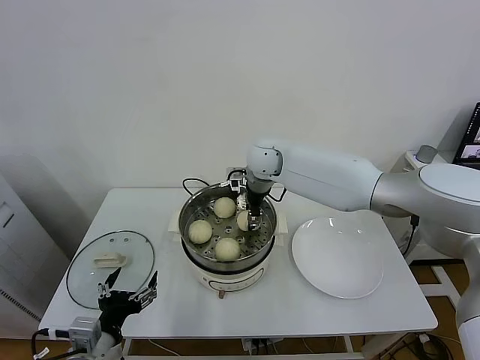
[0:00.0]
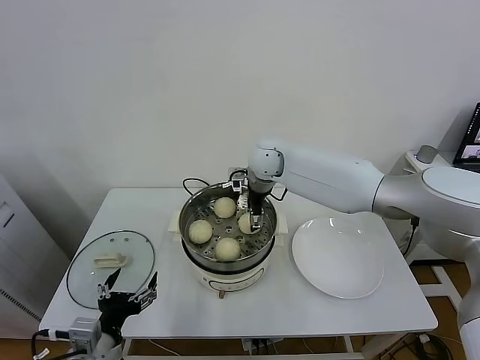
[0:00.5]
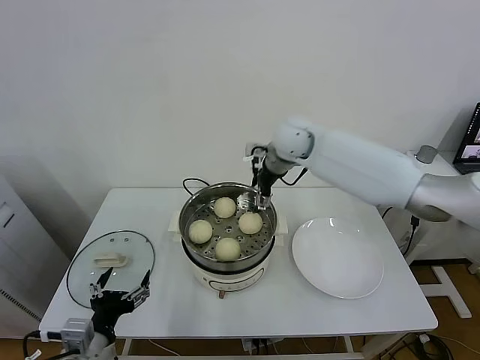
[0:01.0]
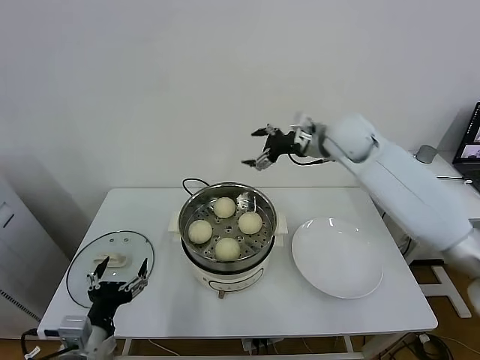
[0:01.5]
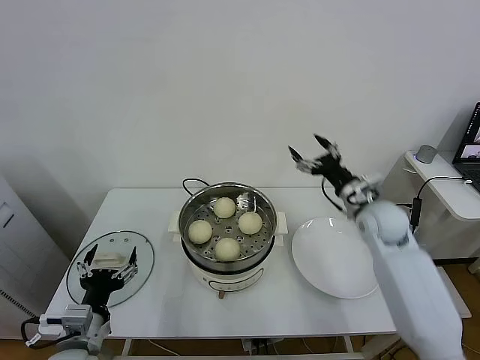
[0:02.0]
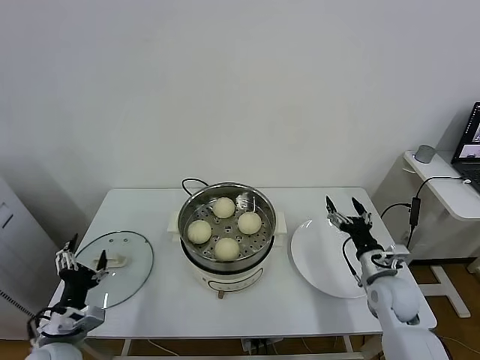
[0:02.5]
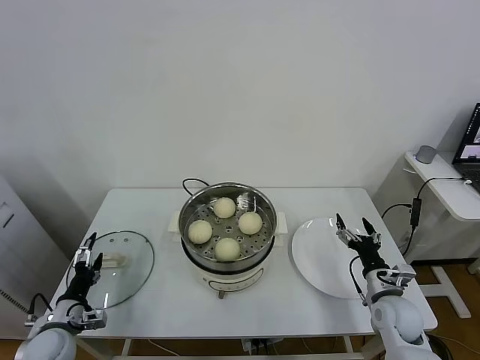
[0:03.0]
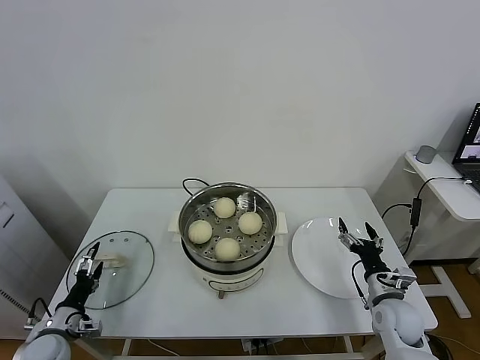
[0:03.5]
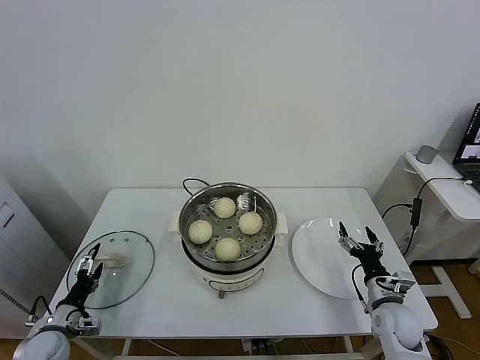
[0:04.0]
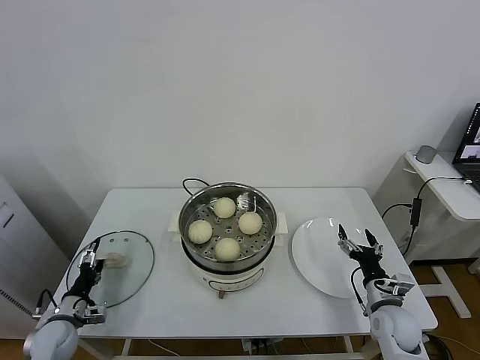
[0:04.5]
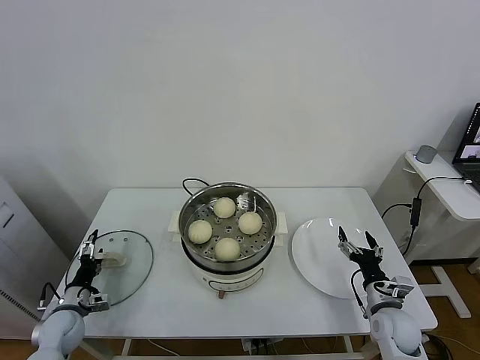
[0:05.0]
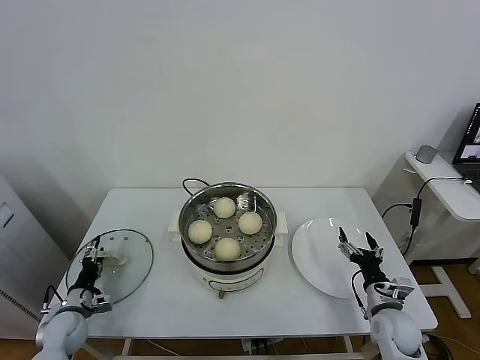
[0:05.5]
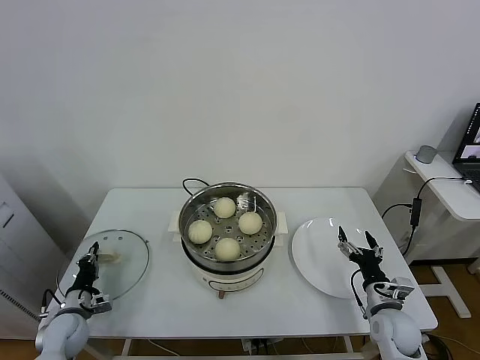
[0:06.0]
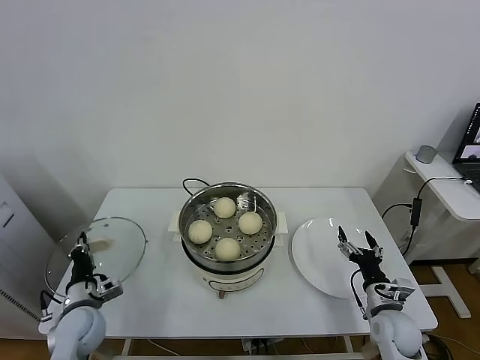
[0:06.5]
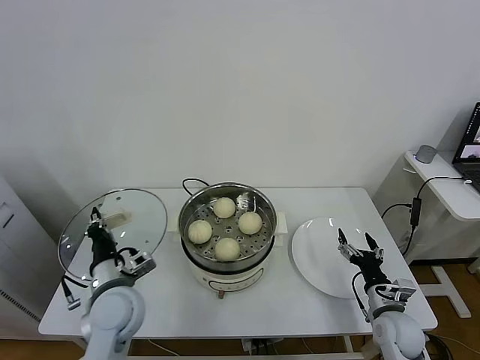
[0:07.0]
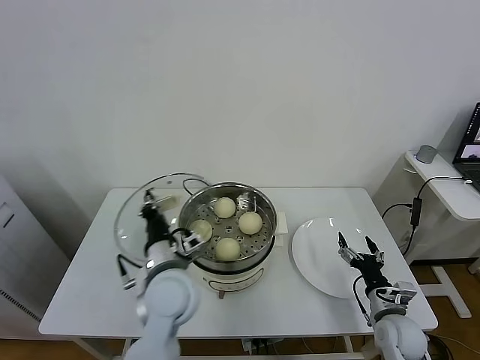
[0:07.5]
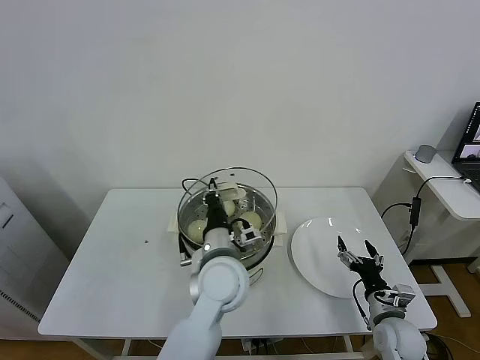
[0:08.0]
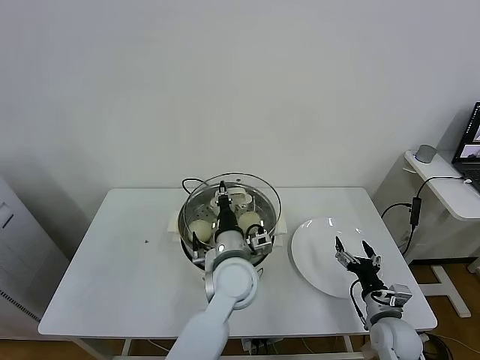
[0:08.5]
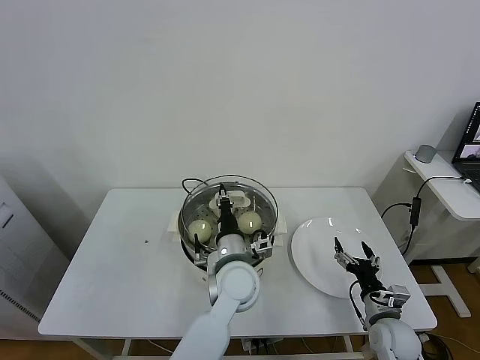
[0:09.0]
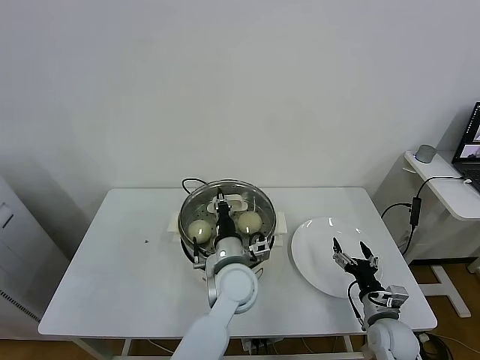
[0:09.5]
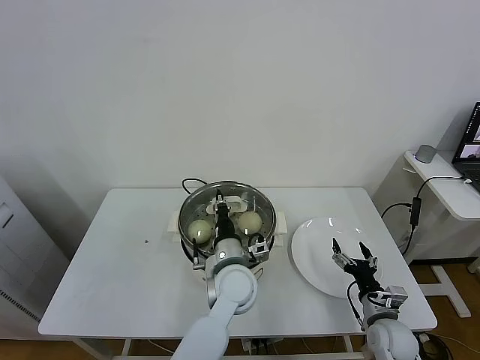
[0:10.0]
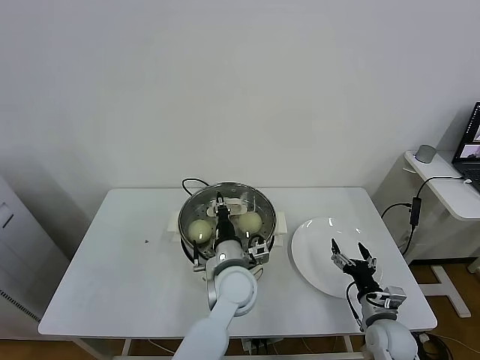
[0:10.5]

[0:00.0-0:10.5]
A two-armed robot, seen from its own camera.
Task of the whole recording: take steamed baozi put them in steamer.
Step, 0:01.0 to 0:06.0: Grasp the pot lid with left gripper.
0:00.0 to 0:02.0: The right gripper is displaced to the right and backward by about 30 cm, and opens up.
0:02.0 to 0:04.0: The left gripper is displaced to the left, downward and forward by about 20 cm. Meanwhile the right gripper travels downward and backward by approximately 25 cm.
0:04.0 to 0:06.5: The left gripper moves to the right and upward, some 10 cm, and closes up.
0:06.5 to 0:08.5: The left gripper goes roughly 35 cm to the right.
0:08.5 to 0:10.5: There are only small adjustments of the grippers.

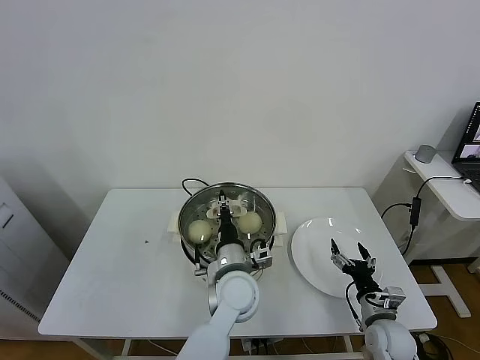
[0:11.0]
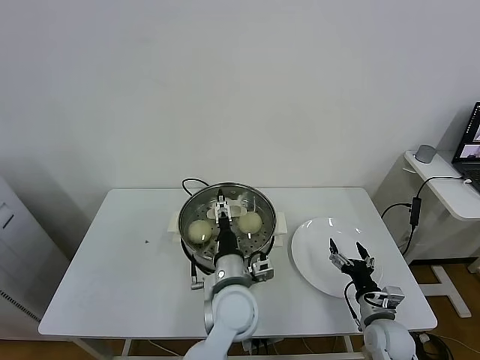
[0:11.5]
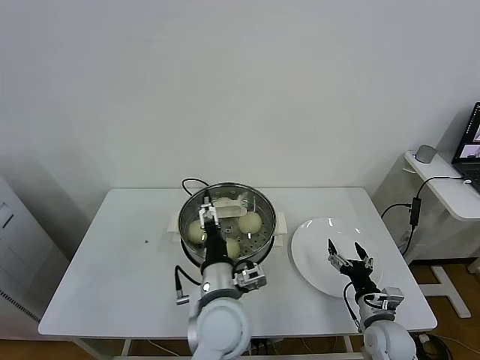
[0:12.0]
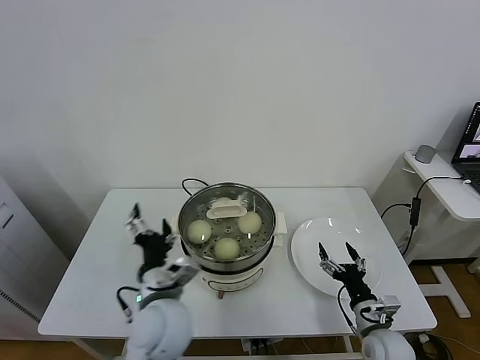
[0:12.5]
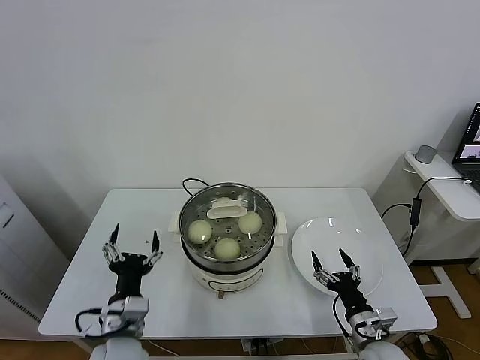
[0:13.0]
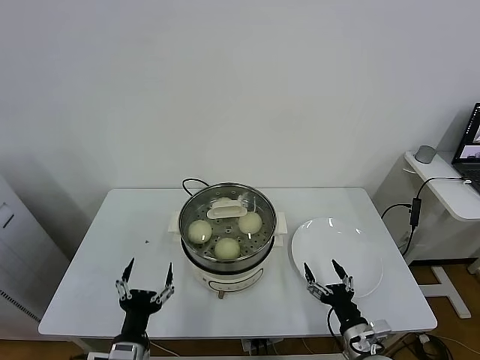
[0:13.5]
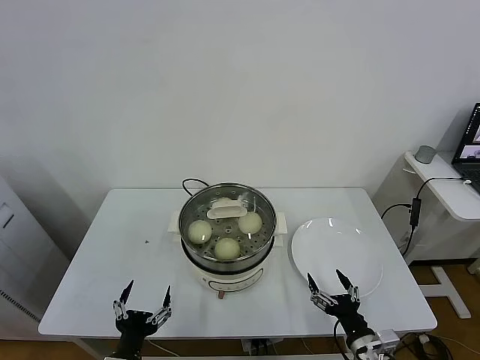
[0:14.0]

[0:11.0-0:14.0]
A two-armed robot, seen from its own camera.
Task of the whole recording: take steamed baozi put them in steamer.
0:11.0 to 0:12.5: The left gripper travels to the left and backward by roughly 15 cm, and opens.
0:12.5 to 0:14.0: The right gripper goes roughly 5 cm backward, while the left gripper is displaced backward, to the left and downward by about 20 cm.
